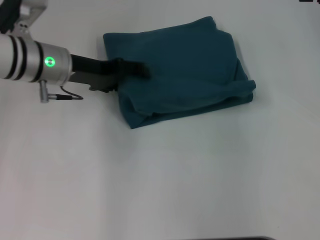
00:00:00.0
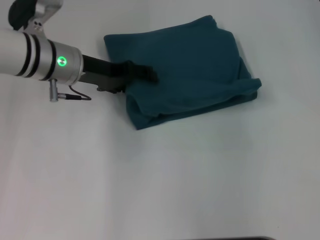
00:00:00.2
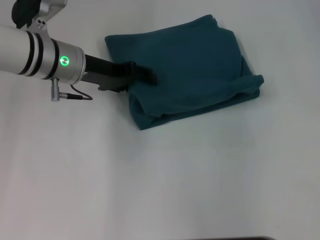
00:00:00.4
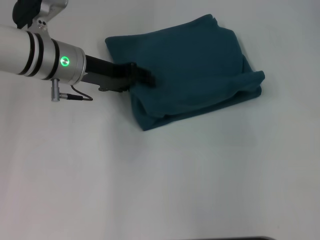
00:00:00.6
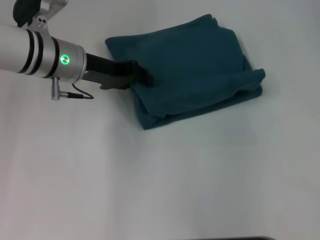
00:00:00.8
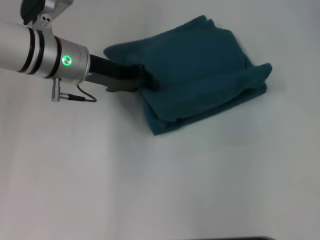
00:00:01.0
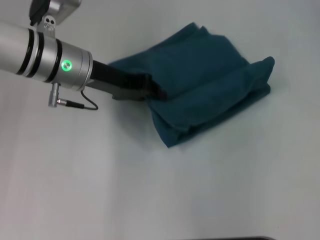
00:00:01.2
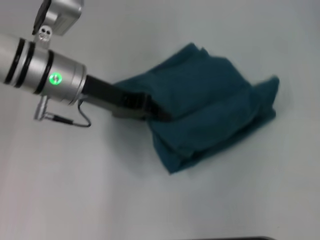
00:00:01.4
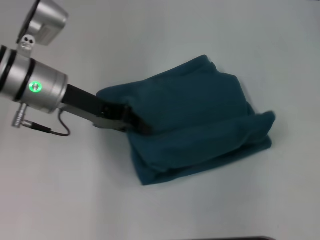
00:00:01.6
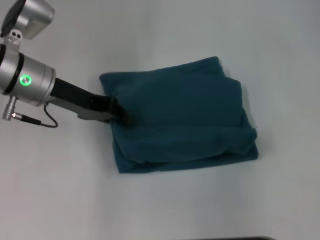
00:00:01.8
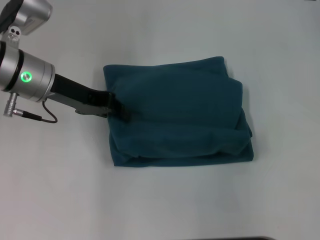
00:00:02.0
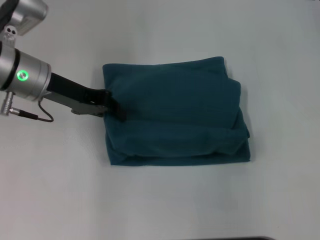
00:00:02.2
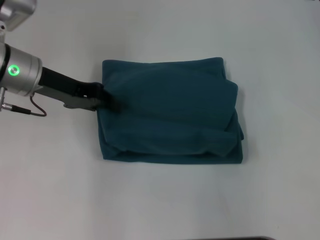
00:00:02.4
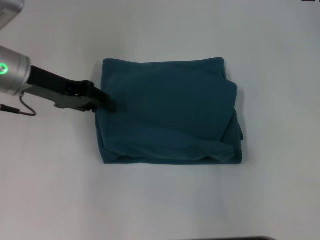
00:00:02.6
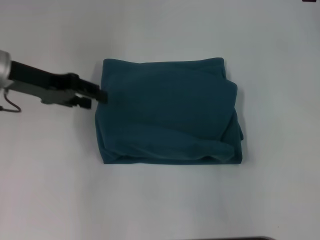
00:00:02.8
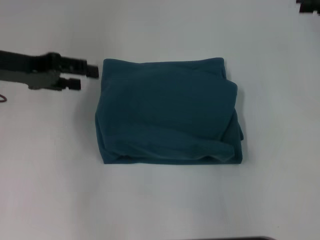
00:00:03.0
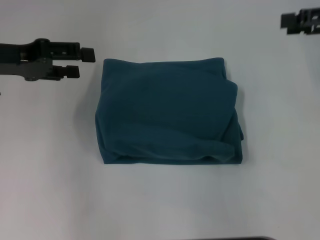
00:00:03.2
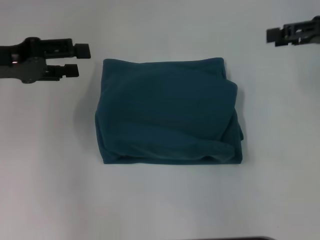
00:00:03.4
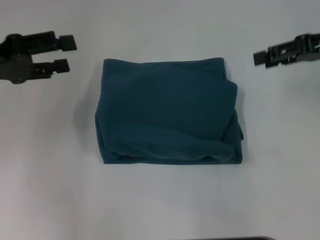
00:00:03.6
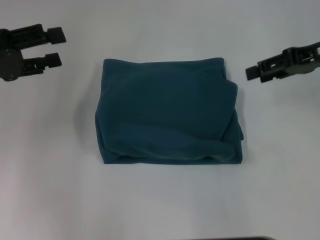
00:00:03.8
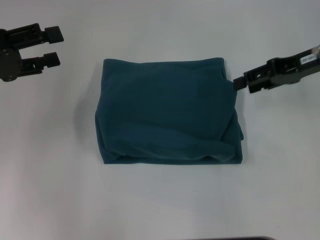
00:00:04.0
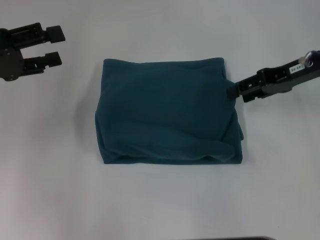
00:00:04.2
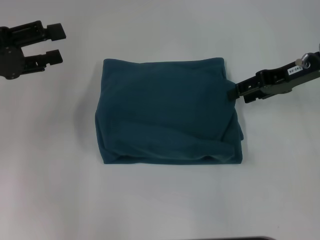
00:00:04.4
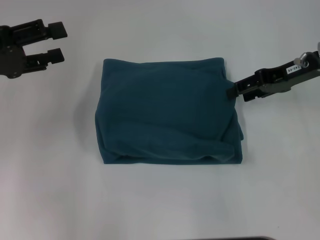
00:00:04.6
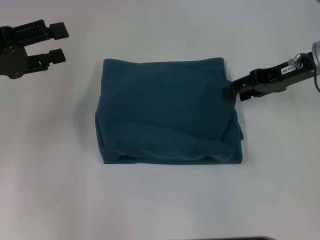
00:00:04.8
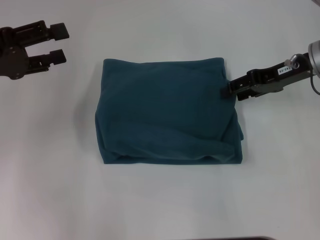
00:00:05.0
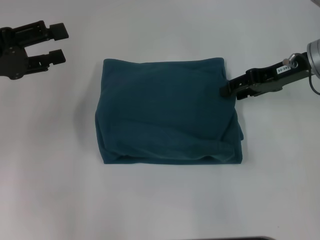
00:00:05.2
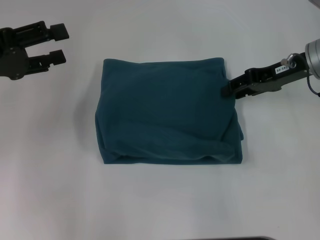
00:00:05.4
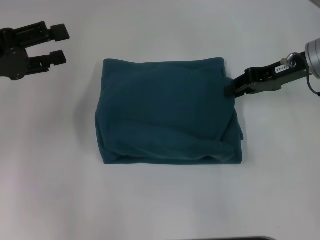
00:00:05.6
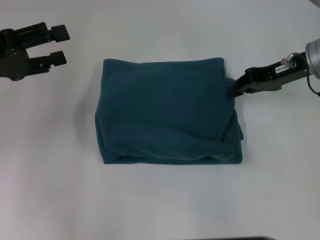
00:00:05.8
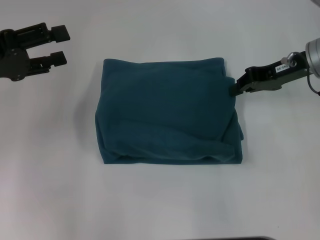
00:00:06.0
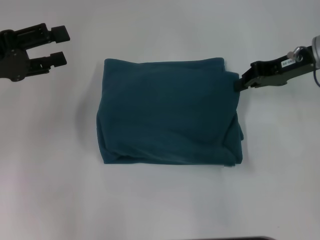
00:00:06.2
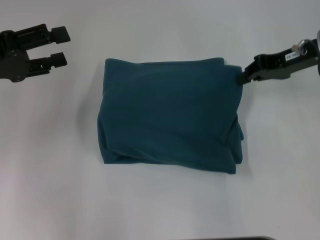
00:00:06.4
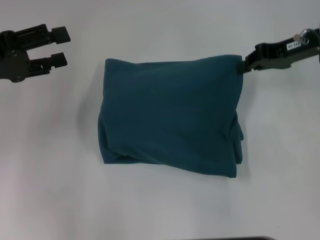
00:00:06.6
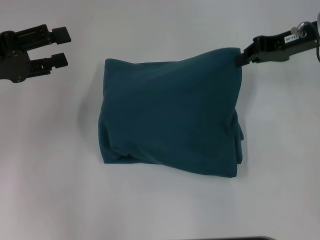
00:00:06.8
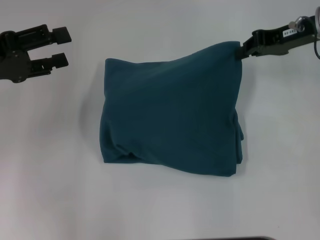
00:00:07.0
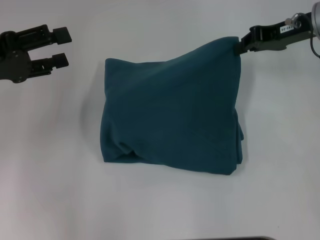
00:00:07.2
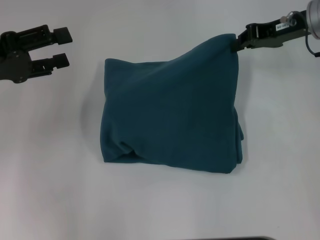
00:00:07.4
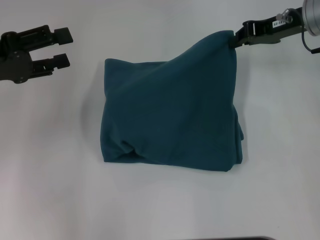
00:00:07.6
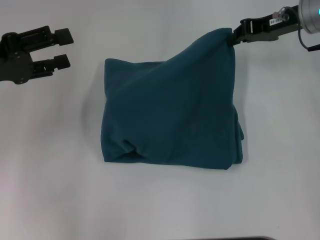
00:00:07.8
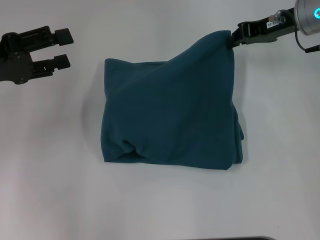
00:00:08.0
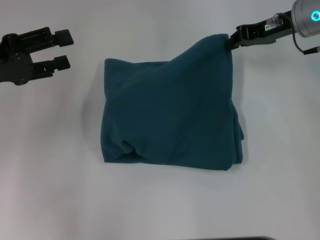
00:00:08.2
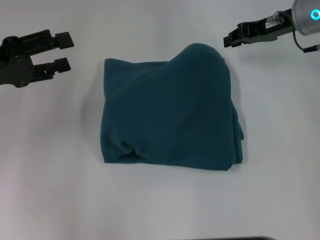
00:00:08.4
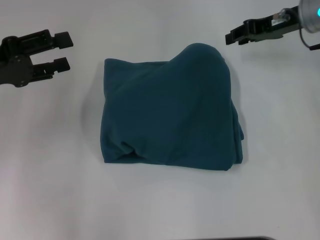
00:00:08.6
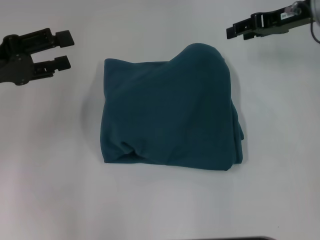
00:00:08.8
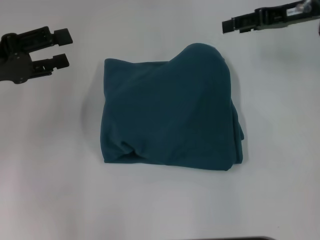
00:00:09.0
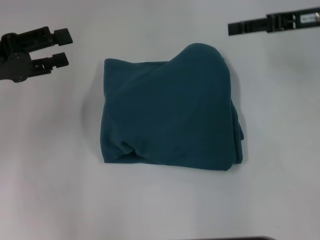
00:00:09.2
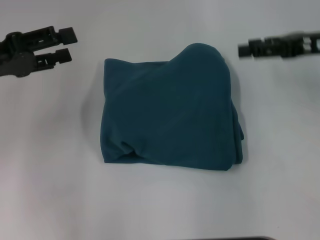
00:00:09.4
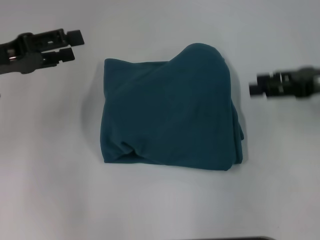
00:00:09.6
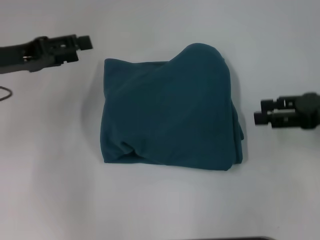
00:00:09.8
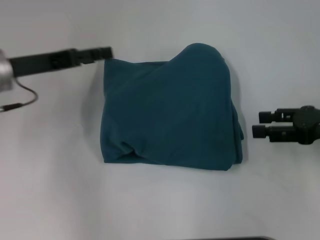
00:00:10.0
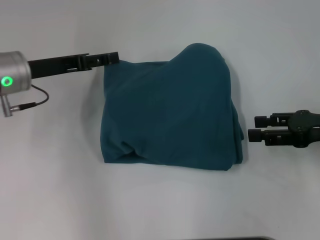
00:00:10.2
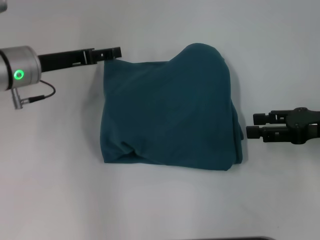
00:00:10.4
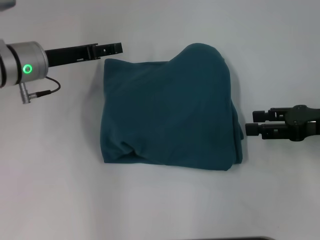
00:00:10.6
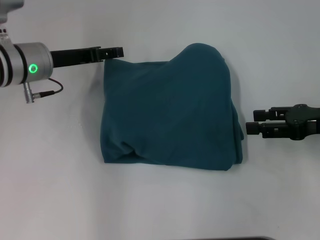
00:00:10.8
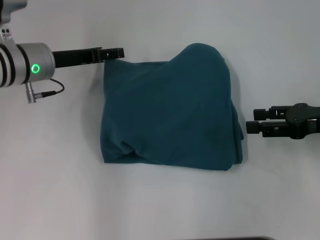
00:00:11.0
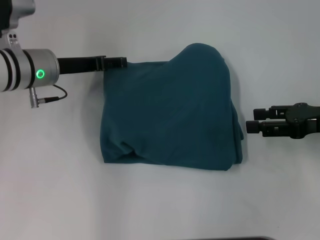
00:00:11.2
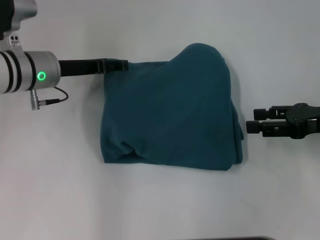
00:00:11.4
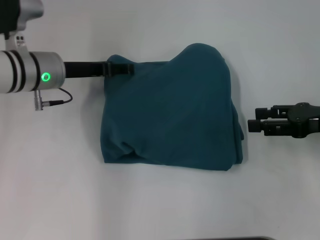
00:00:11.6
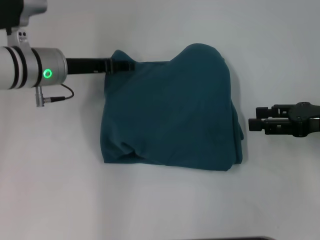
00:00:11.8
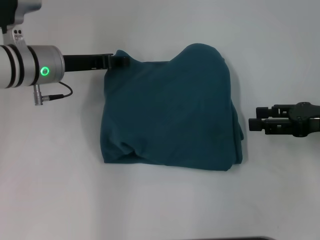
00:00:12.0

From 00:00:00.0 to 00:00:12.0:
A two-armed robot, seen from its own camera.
From 00:00:00.0 to 00:00:01.6: The left gripper closes up.
From 00:00:01.6 to 00:00:03.0: The left gripper moves to the left, approximately 10 cm, and opens its fingers.
From 00:00:03.0 to 00:00:04.4: The right gripper is displaced to the left and downward by about 10 cm, while the left gripper shifts by roughly 5 cm.
From 00:00:04.4 to 00:00:06.0: The right gripper closes up.
From 00:00:06.0 to 00:00:07.6: The right gripper changes place by about 5 cm.
From 00:00:07.6 to 00:00:09.0: The right gripper opens up.
From 00:00:09.0 to 00:00:10.4: The left gripper heads to the right and forward, covering roughly 10 cm; the right gripper moves backward and downward, some 15 cm.
From 00:00:10.4 to 00:00:12.0: There are only small adjustments of the grippers.

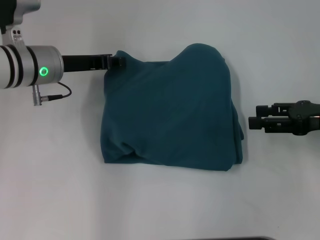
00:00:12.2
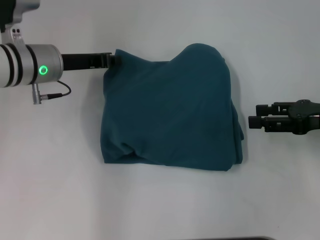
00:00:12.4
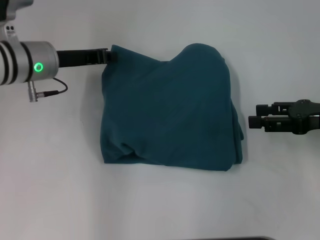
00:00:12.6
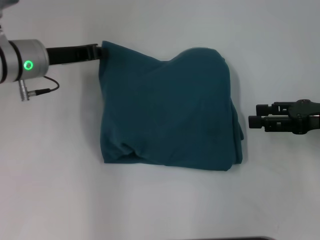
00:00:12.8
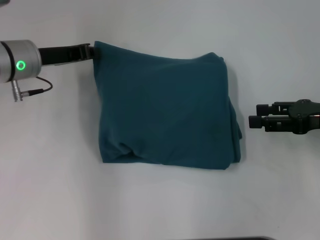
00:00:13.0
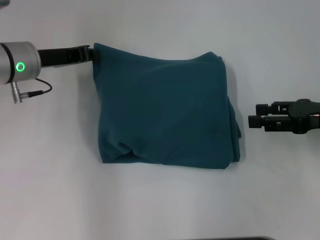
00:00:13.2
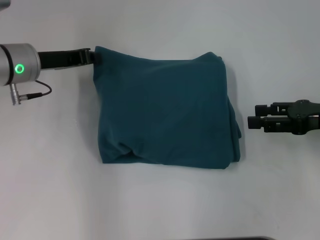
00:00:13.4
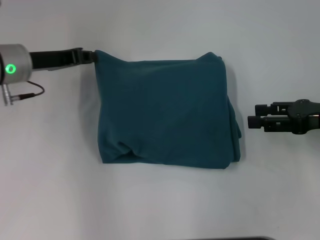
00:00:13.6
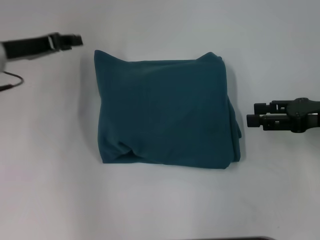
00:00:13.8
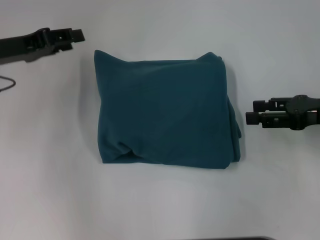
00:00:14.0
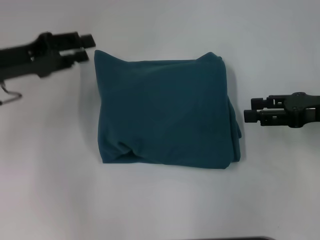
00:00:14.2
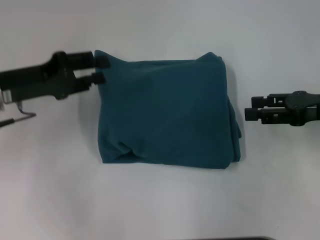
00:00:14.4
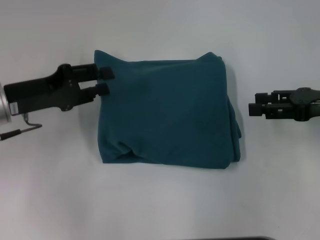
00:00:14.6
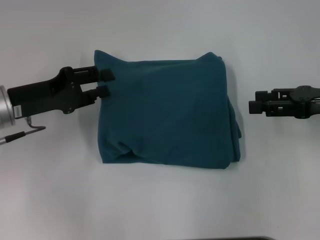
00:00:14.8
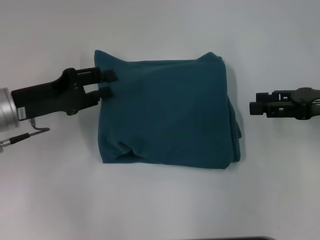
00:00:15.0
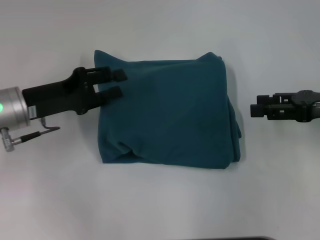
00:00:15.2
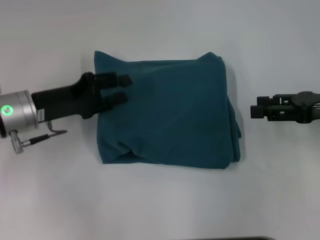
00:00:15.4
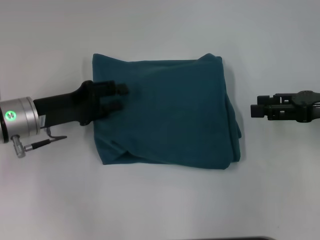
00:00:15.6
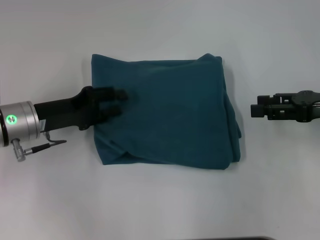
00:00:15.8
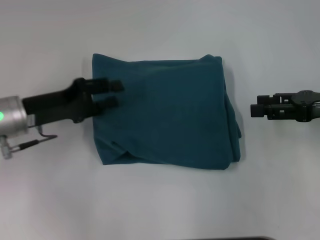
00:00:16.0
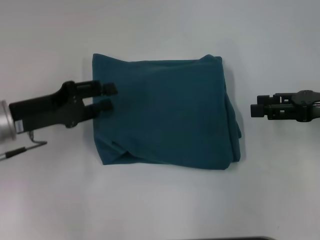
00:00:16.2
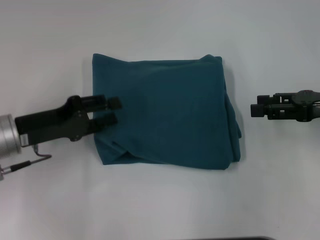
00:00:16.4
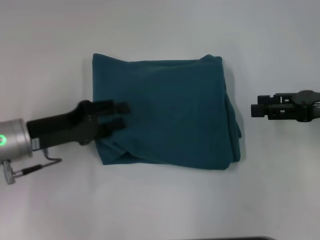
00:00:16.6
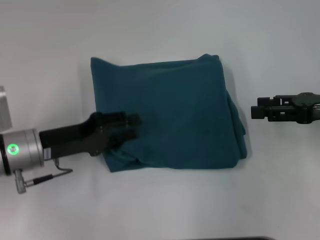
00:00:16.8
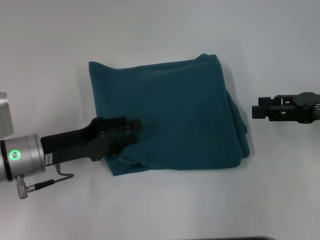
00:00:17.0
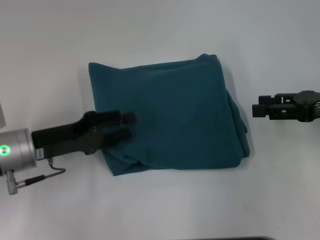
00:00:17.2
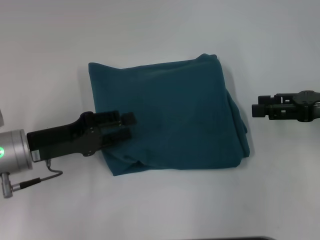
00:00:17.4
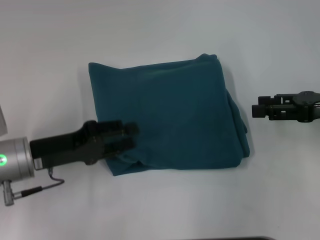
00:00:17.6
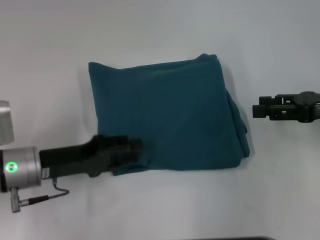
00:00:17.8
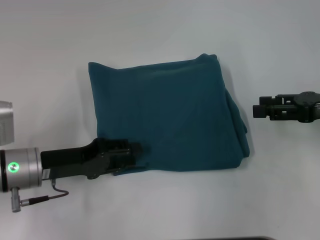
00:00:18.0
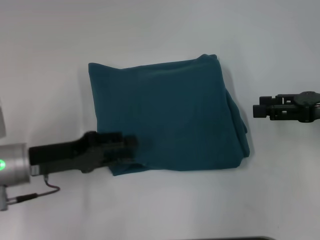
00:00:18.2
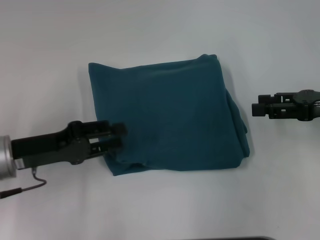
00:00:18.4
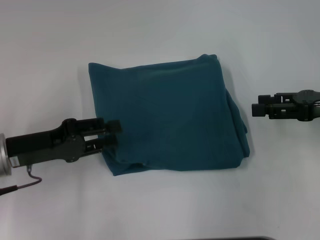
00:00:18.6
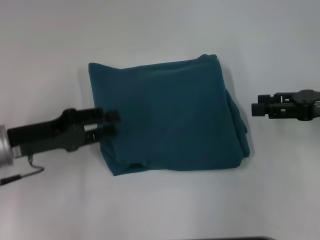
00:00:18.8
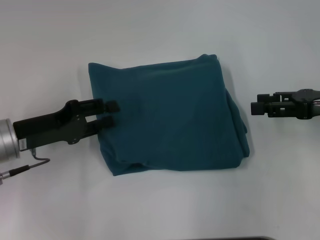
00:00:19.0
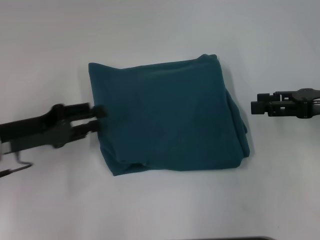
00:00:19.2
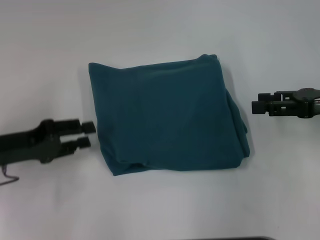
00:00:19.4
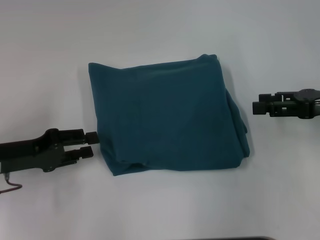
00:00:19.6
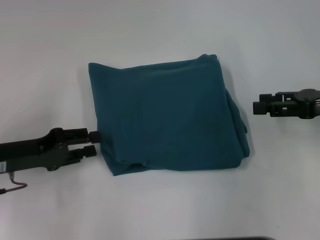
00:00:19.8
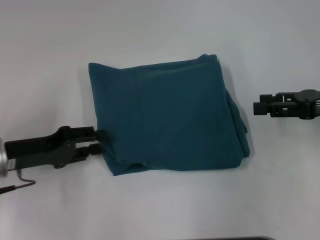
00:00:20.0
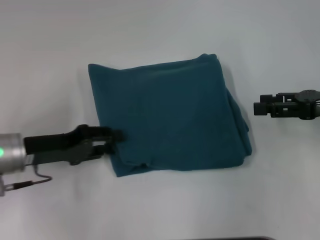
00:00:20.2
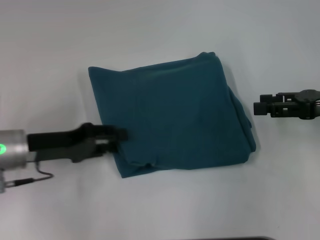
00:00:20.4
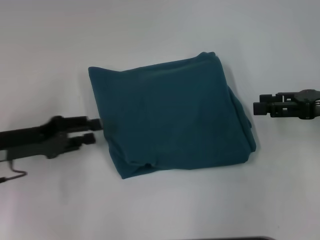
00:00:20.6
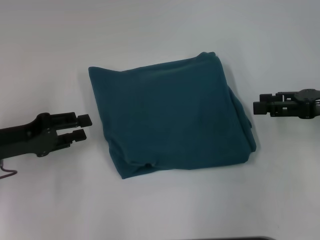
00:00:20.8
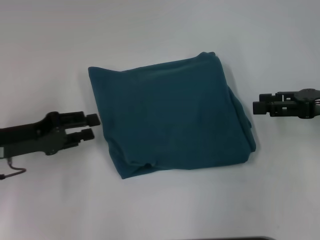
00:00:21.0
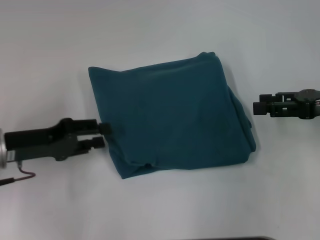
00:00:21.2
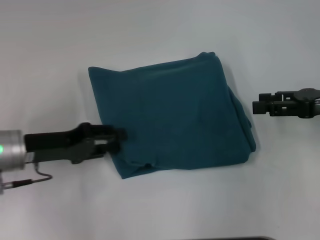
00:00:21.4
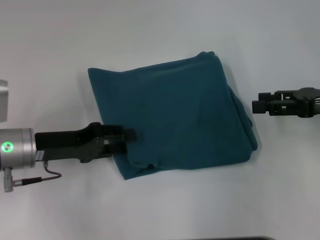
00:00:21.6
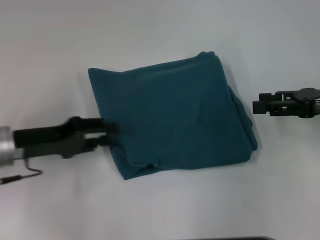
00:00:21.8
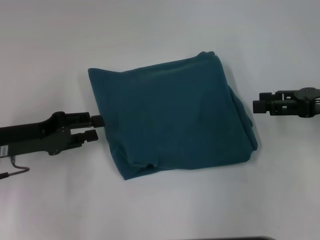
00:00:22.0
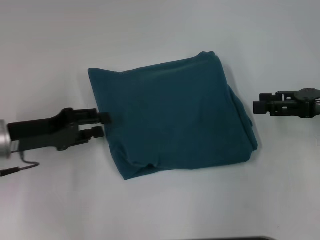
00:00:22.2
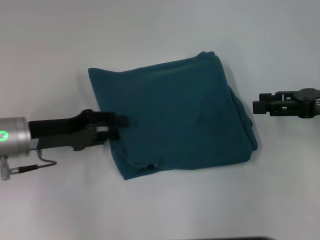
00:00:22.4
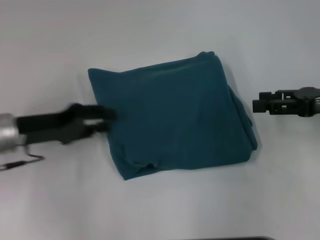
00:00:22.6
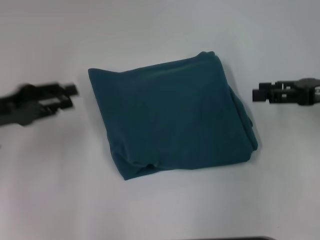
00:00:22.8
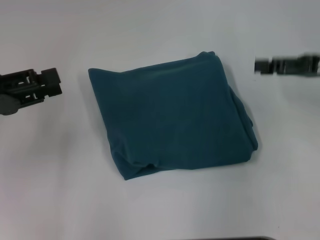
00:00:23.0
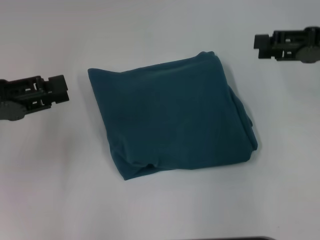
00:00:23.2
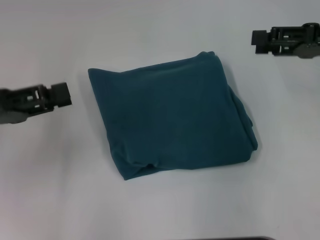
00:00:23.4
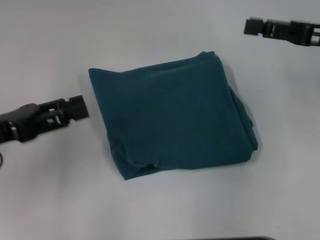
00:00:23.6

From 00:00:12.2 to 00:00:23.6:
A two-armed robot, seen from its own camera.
From 00:00:12.2 to 00:00:13.6: The left gripper closes up.
From 00:00:13.6 to 00:00:15.0: The left gripper heads backward, covering some 5 cm, and opens.
From 00:00:15.0 to 00:00:16.4: The grippers move only a little.
From 00:00:16.4 to 00:00:17.8: The grippers make only small movements.
From 00:00:17.8 to 00:00:19.4: The left gripper moves to the left, roughly 5 cm.
From 00:00:19.4 to 00:00:20.8: The grippers stay close to where they were, moving slightly.
From 00:00:22.2 to 00:00:23.6: The left gripper ends up approximately 5 cm from where it was, while the right gripper changes place by about 5 cm.
